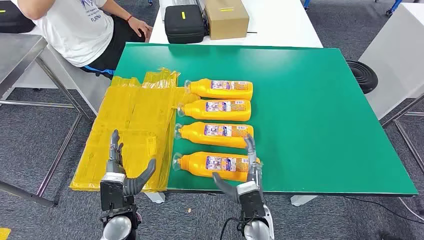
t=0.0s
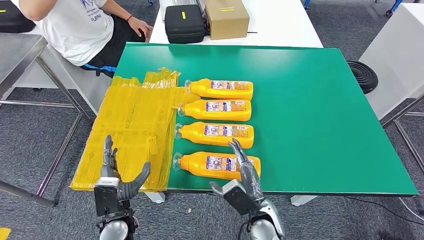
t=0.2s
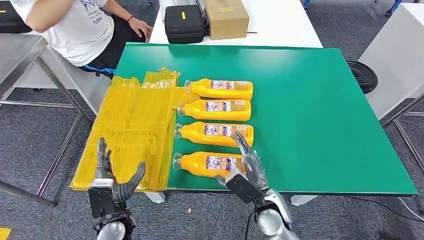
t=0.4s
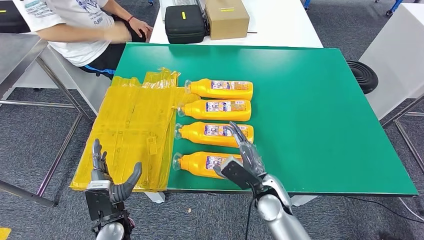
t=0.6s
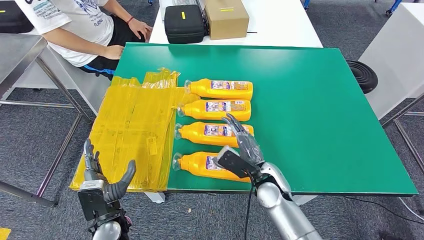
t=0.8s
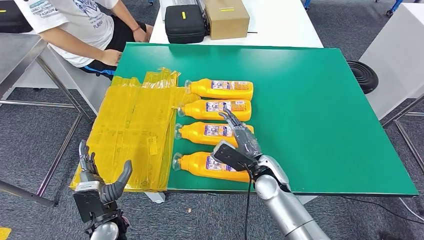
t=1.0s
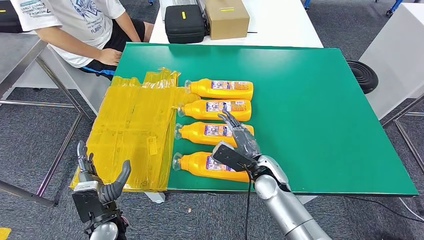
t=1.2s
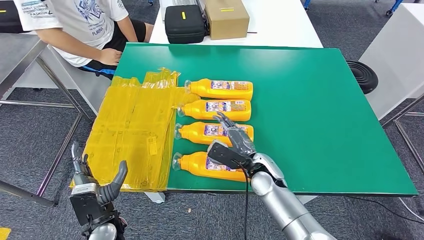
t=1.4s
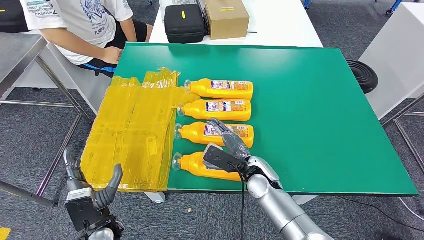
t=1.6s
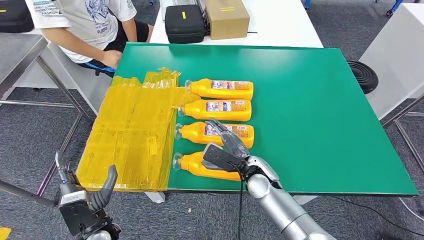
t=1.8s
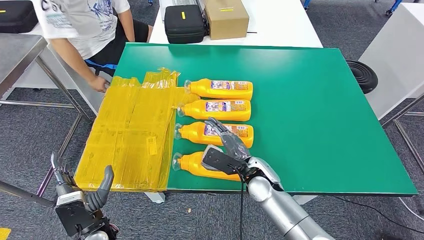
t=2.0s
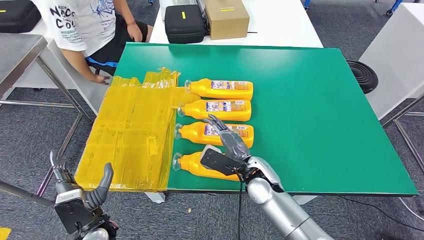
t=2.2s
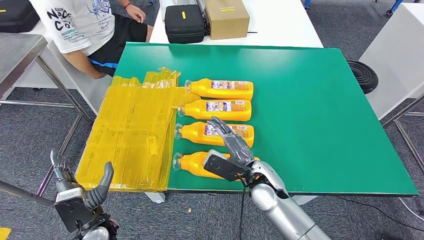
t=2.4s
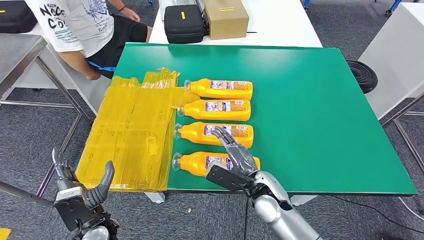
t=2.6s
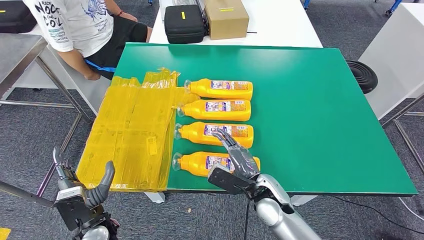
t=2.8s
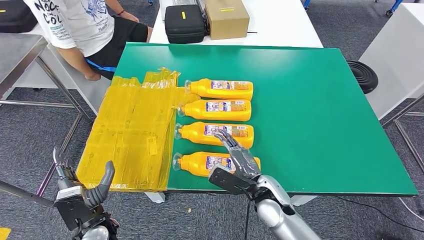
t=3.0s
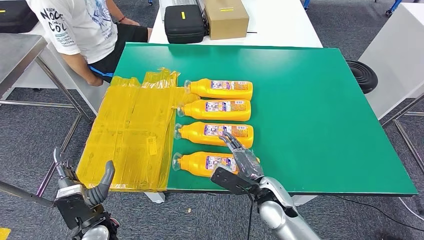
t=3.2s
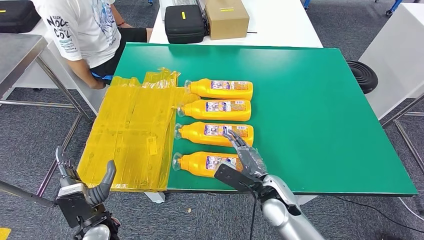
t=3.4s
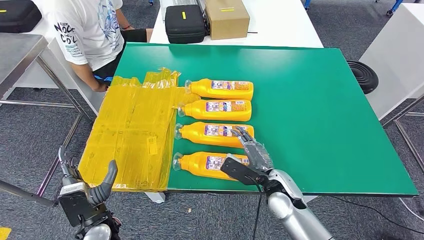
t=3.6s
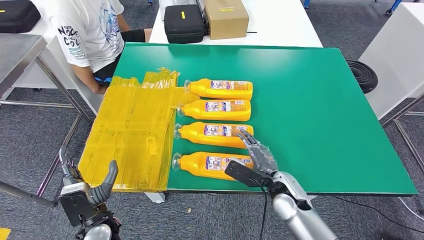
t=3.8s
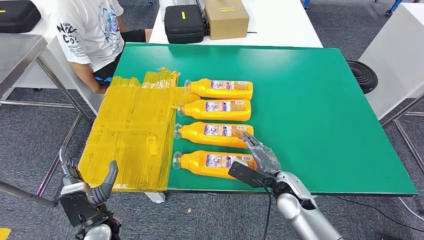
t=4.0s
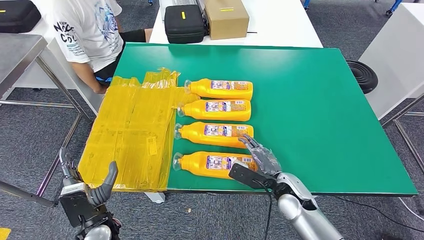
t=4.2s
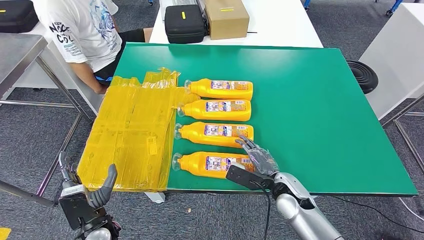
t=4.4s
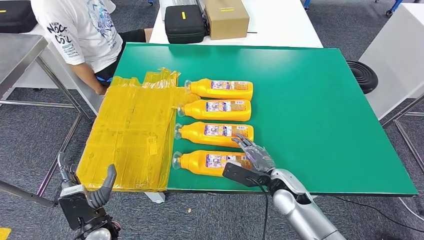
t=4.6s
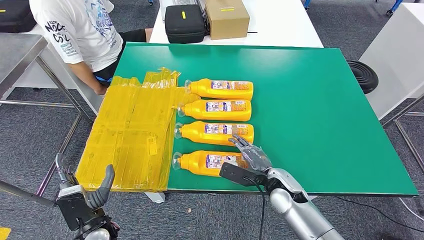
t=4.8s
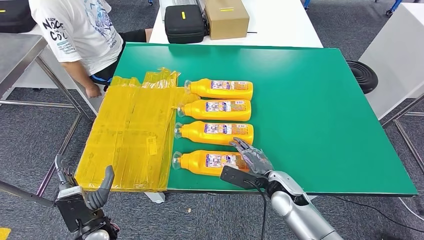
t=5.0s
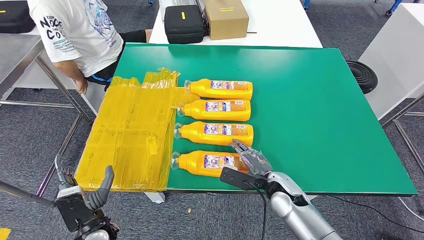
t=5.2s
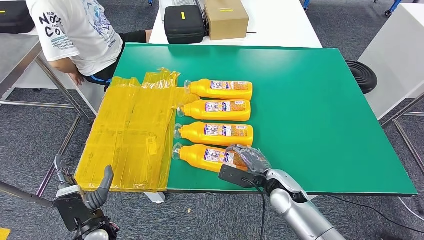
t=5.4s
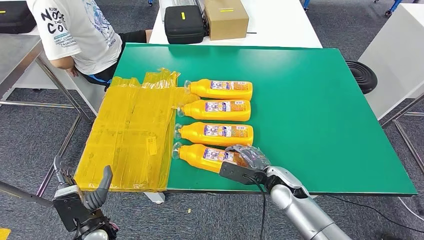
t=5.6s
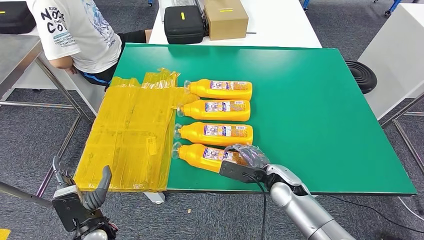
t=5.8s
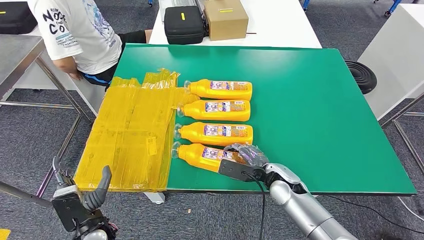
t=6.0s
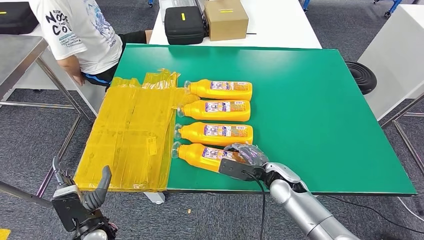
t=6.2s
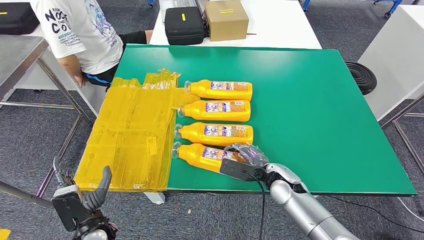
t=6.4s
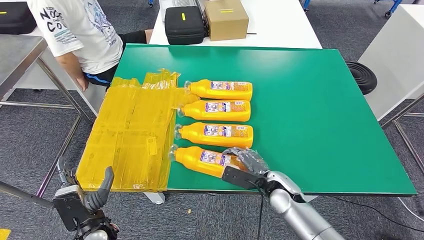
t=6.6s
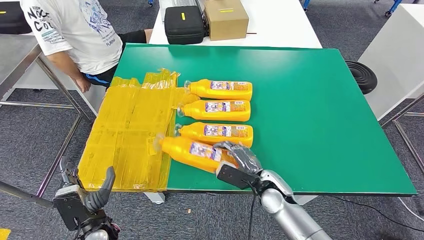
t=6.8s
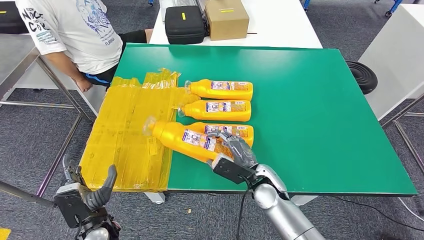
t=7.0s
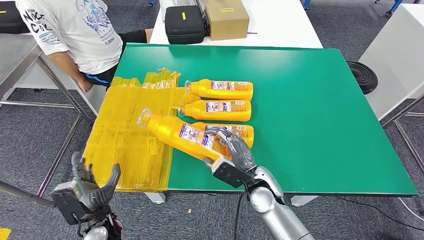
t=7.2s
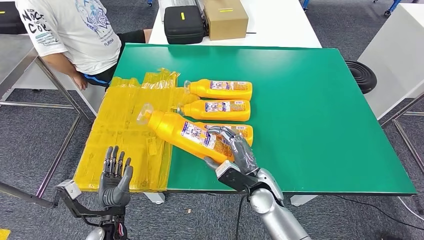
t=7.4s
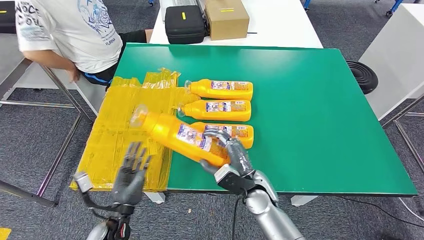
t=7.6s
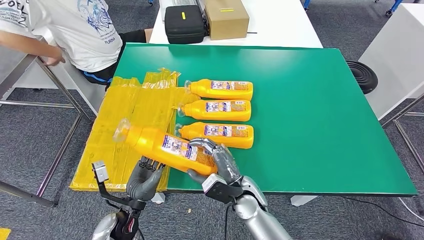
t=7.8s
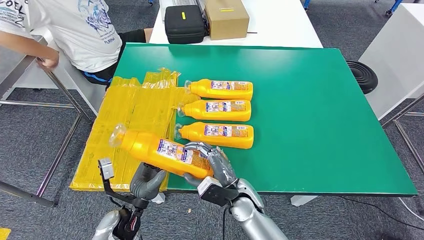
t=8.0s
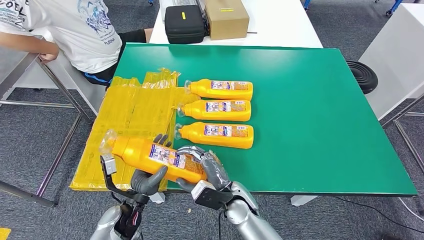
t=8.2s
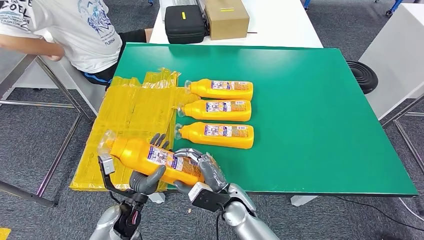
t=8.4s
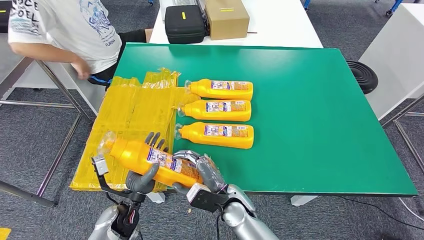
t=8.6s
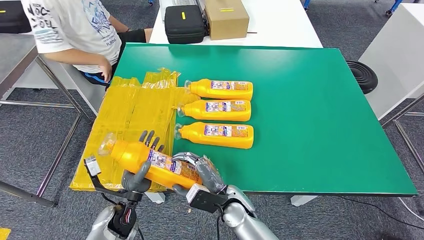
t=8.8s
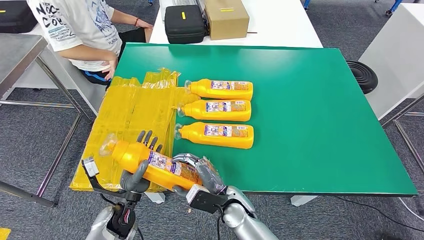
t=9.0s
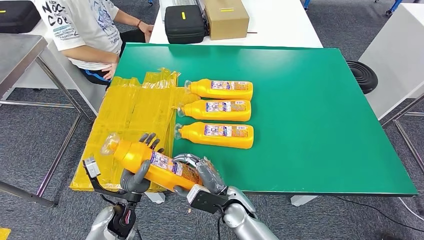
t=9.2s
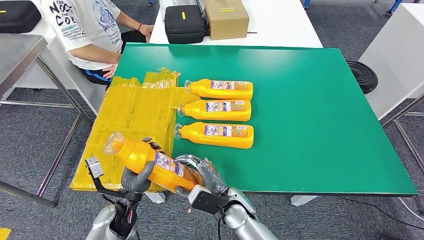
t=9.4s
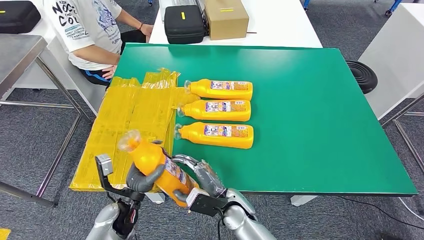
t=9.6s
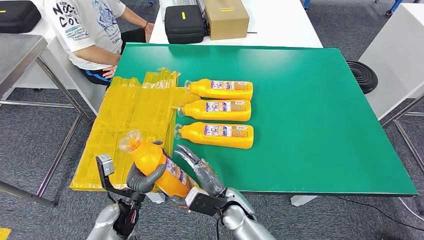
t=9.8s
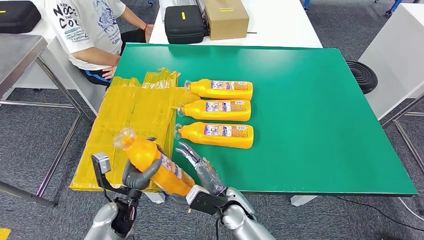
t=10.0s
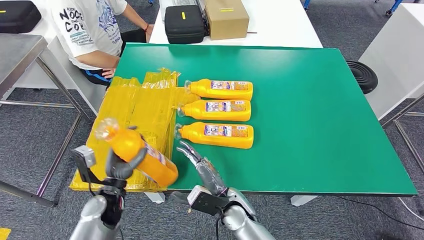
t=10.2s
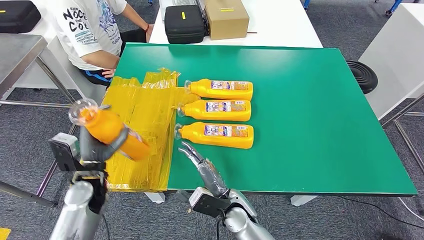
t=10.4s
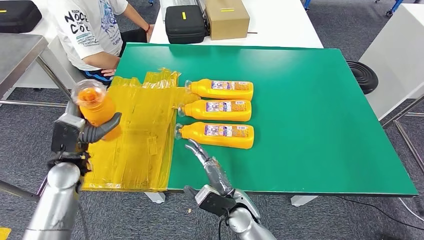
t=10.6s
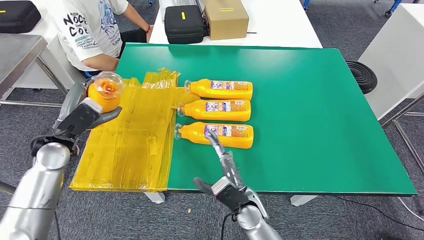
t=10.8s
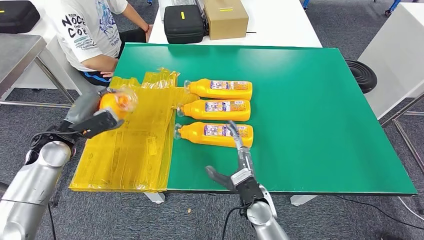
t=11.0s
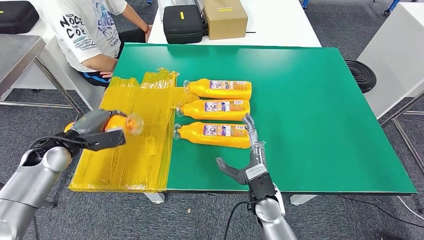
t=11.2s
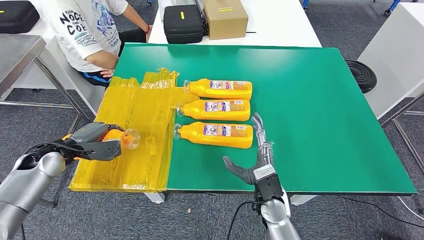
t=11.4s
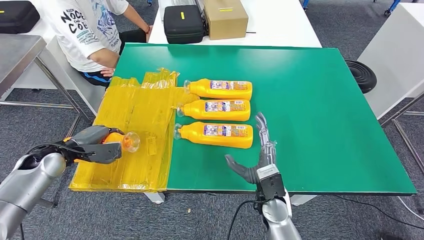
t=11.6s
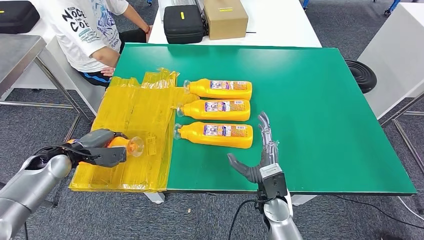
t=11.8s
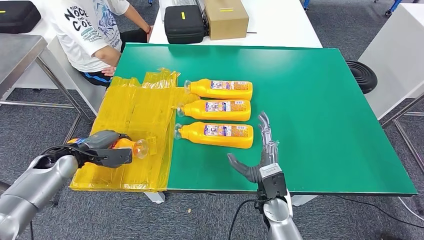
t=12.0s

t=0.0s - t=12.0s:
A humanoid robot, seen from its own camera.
Step, t=0.0s - t=8.6s: Take the bottle from the table.
t=1.6s - t=3.0s: The right hand is displaced backward by roughly 5 cm.
t=3.0s - t=4.4s: The right hand heads to the right, covering some 5 cm.
t=4.4s - t=6.0s: There are only small adjustments of the hands.
t=6.0s - t=7.6s: The right hand travels to the left by about 5 cm.
t=7.6s - t=9.0s: The right hand shifts roughly 5 cm to the left.
t=9.0s - t=10.4s: The left hand goes approximately 10 cm upward, to the left and forward.
t=10.4s - t=12.0s: The left hand goes some 10 cm to the left and forward, while the right hand heads to the right, covering approximately 10 cm.

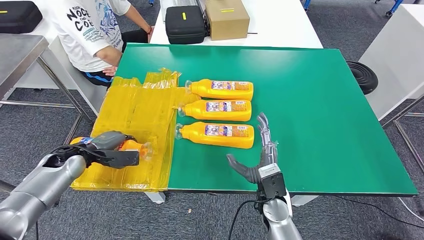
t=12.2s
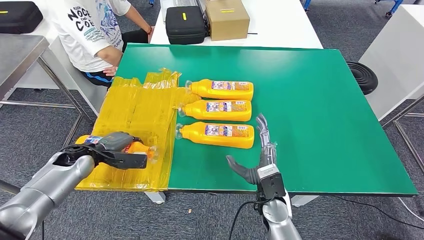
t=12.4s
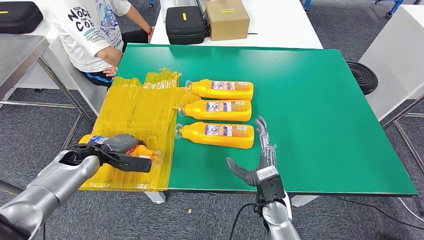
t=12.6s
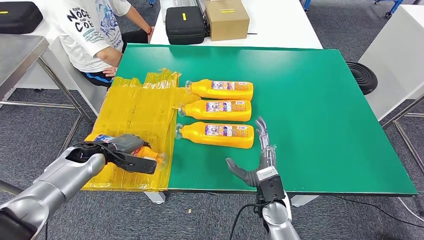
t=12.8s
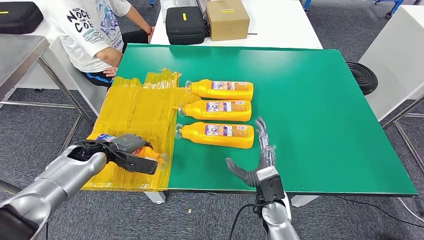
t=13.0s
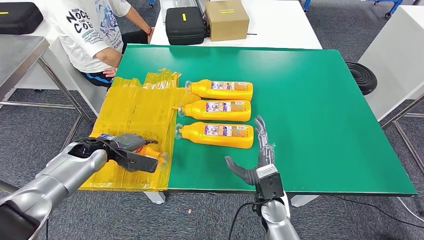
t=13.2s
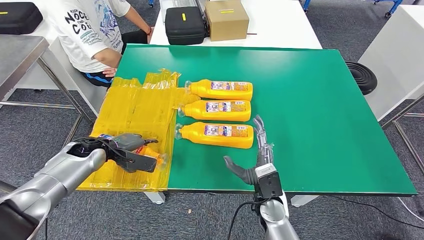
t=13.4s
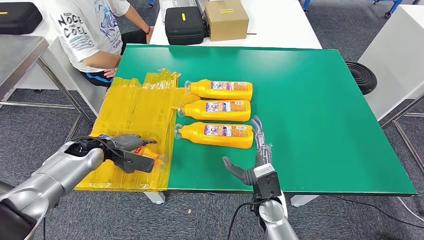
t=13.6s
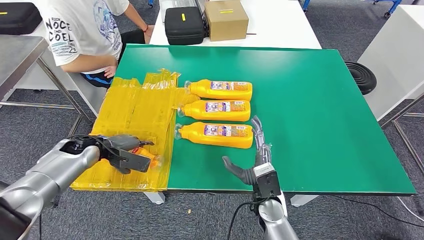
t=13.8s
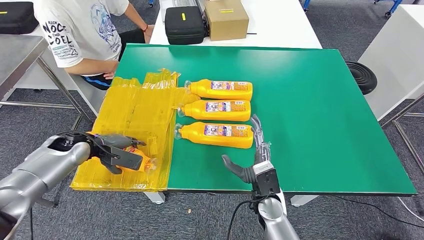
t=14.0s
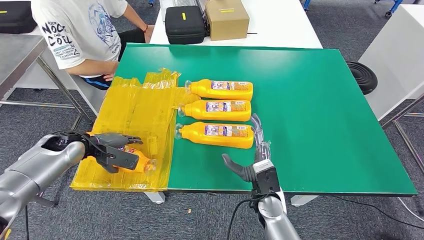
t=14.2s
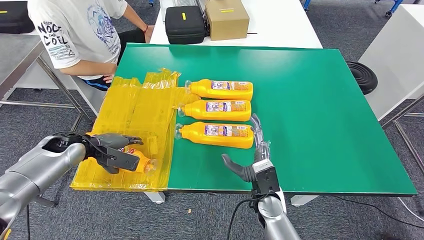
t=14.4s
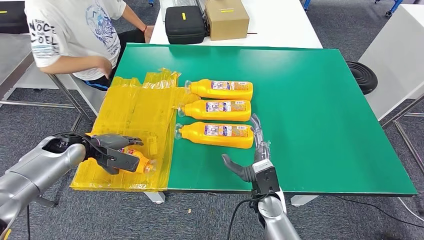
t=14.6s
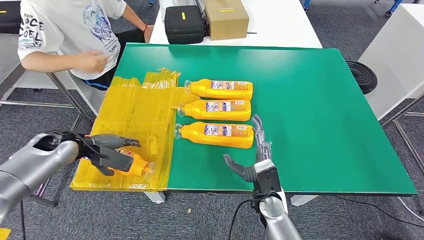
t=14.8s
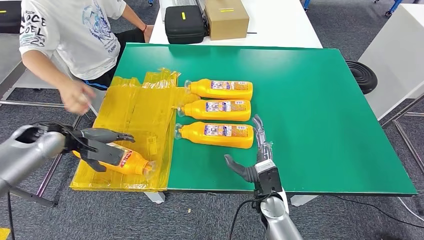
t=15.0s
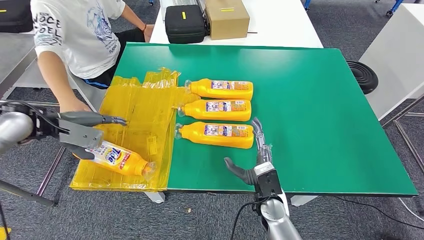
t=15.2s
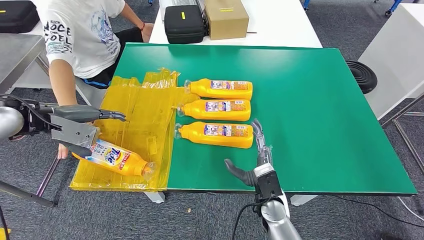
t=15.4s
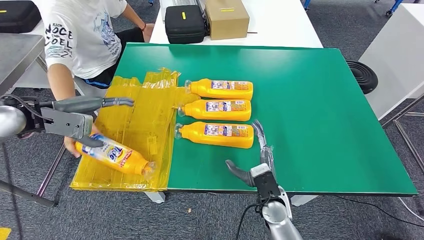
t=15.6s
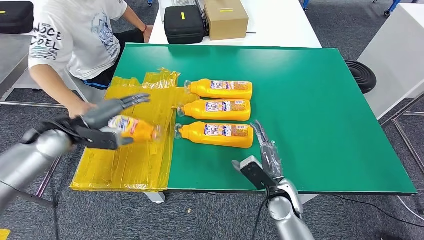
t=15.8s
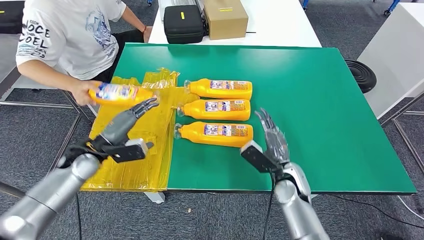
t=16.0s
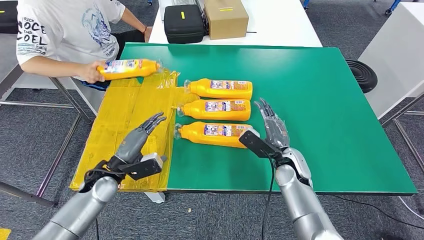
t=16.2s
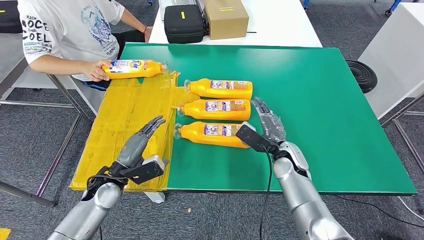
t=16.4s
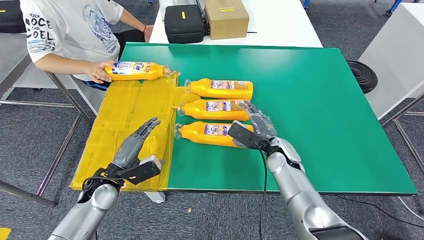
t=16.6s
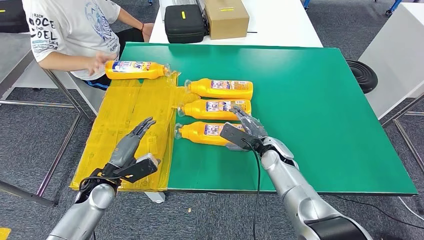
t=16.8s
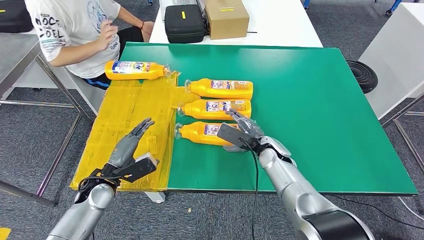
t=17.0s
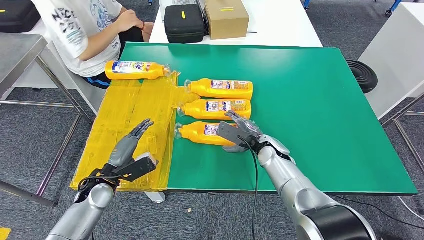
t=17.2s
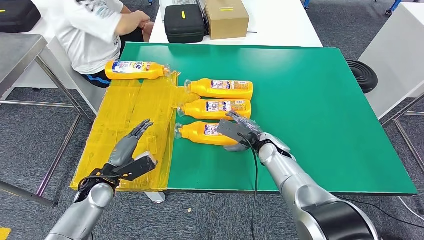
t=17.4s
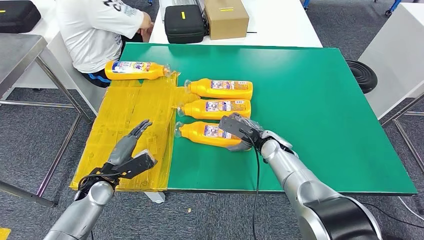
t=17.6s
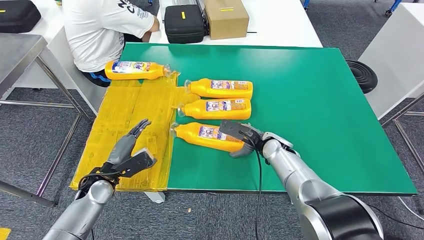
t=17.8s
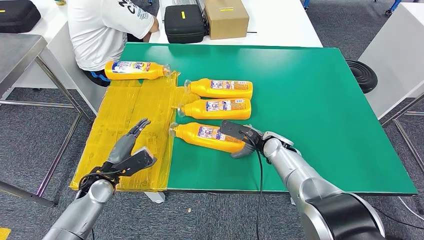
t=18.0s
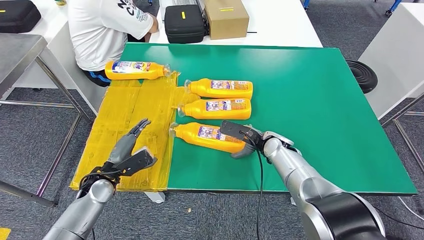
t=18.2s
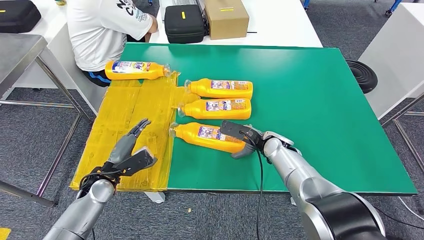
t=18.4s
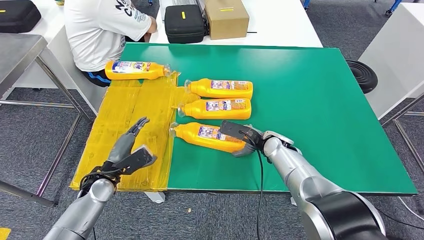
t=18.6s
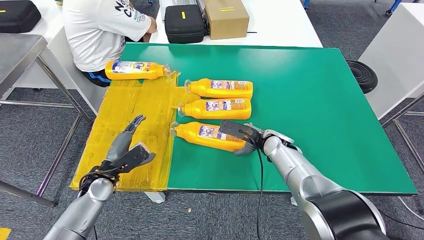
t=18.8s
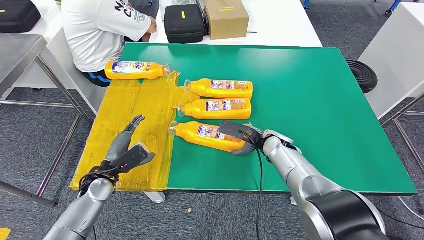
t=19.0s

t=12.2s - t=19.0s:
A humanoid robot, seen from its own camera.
t=12.2s - t=13.6s: The hands stay close to where they were, moving slightly.
t=13.6s - t=15.0s: The left hand moves upward and to the left, about 10 cm.
t=16.2s - t=17.6s: The right hand shifts roughly 5 cm forward.
t=17.6s - t=19.0s: The hands make only small movements.
